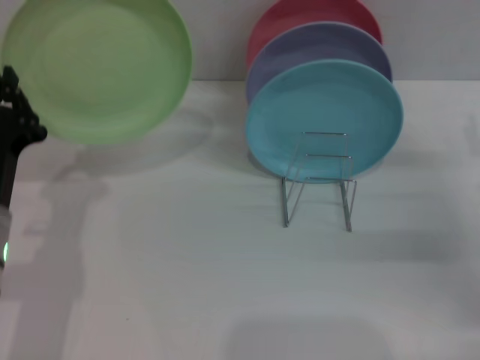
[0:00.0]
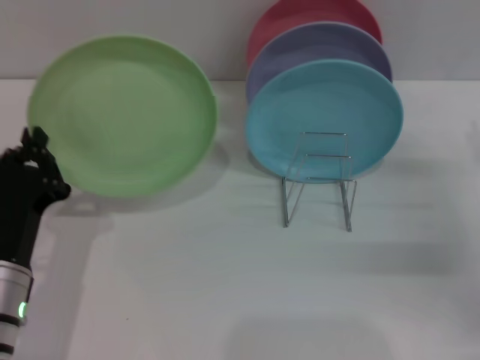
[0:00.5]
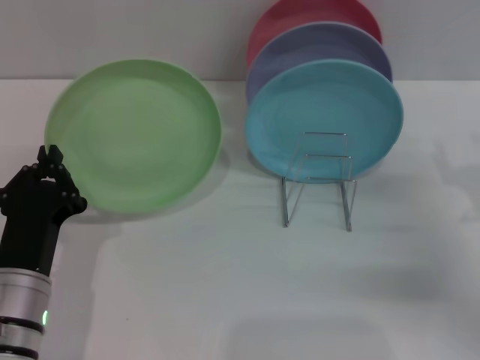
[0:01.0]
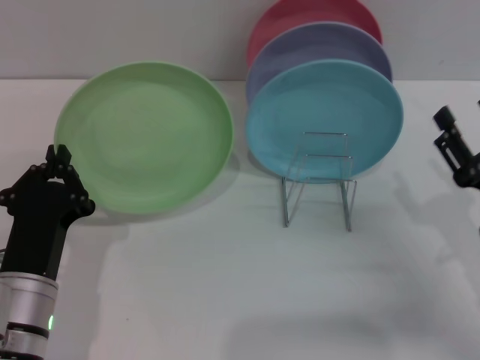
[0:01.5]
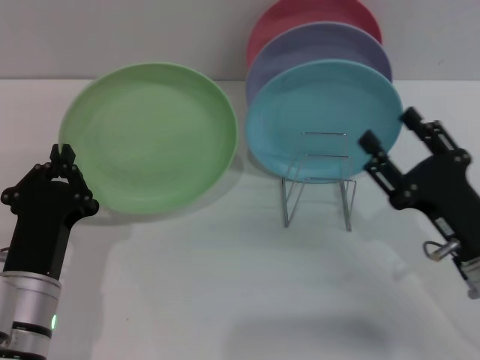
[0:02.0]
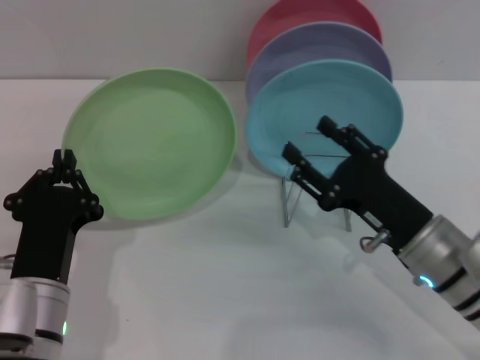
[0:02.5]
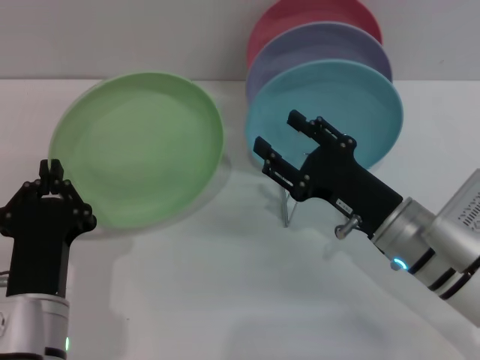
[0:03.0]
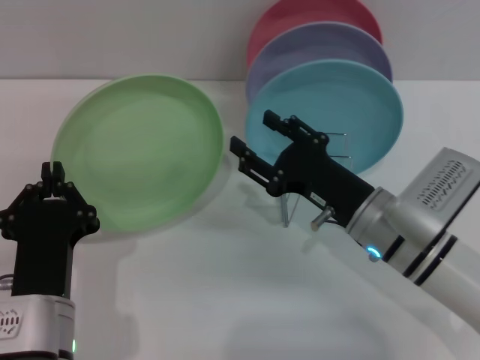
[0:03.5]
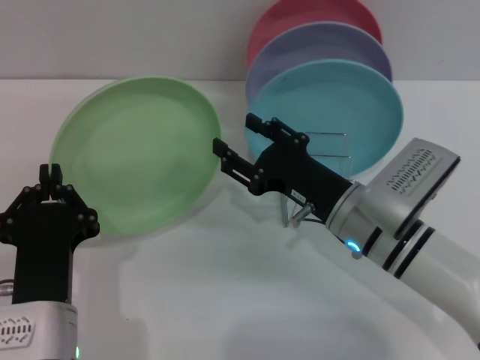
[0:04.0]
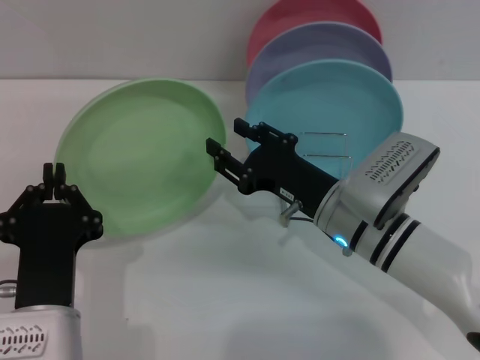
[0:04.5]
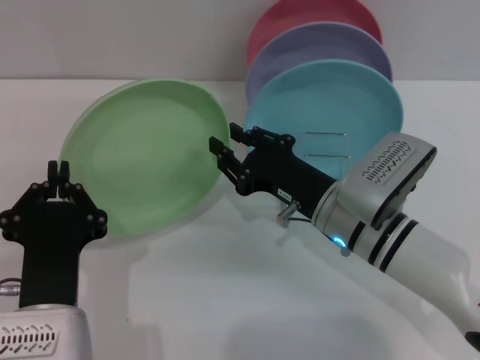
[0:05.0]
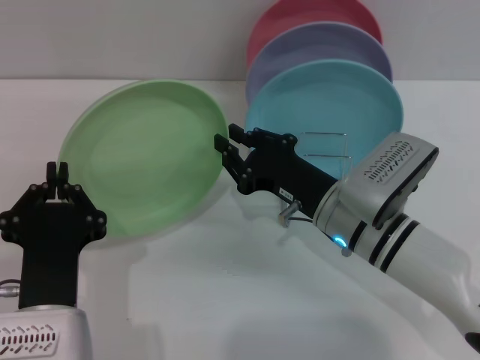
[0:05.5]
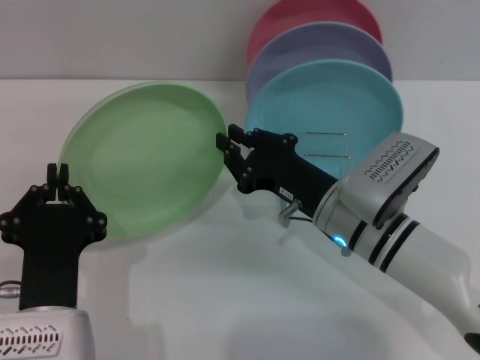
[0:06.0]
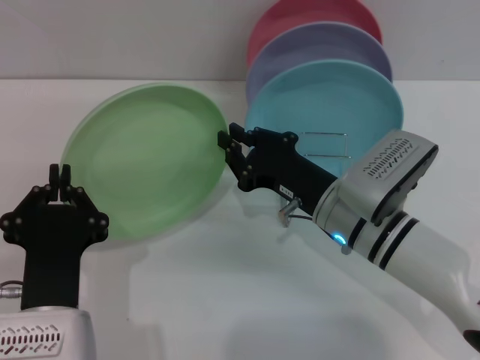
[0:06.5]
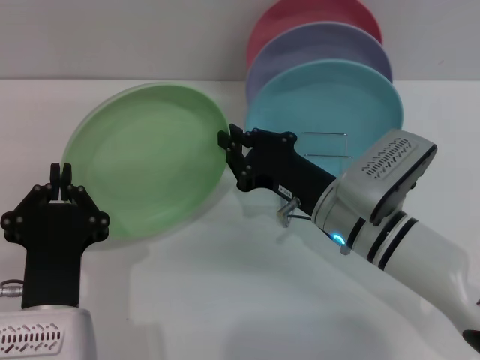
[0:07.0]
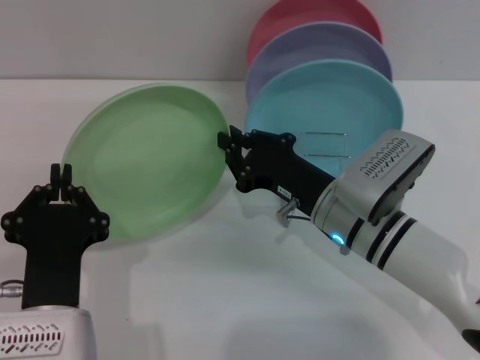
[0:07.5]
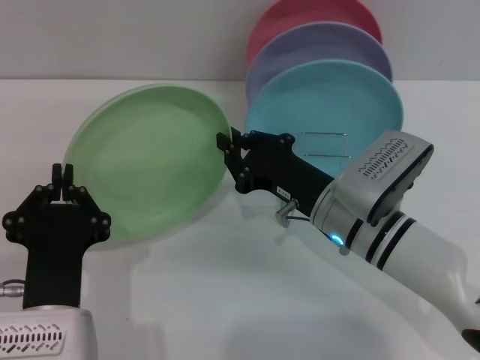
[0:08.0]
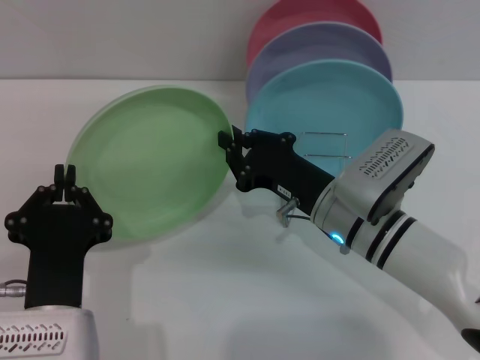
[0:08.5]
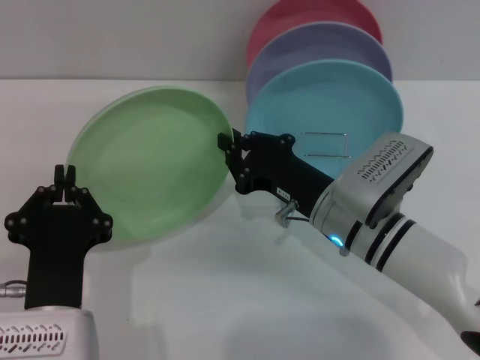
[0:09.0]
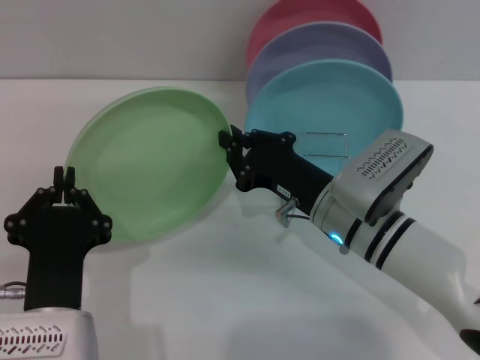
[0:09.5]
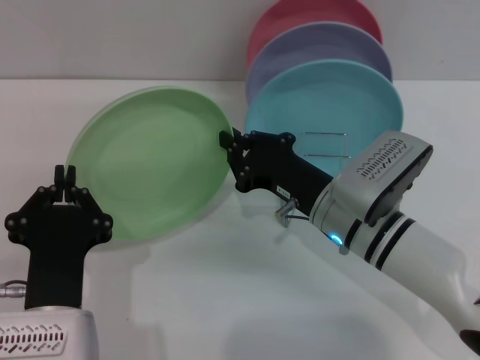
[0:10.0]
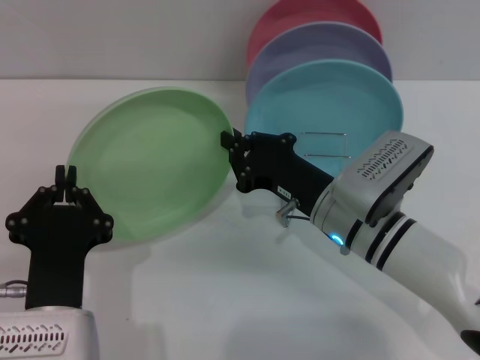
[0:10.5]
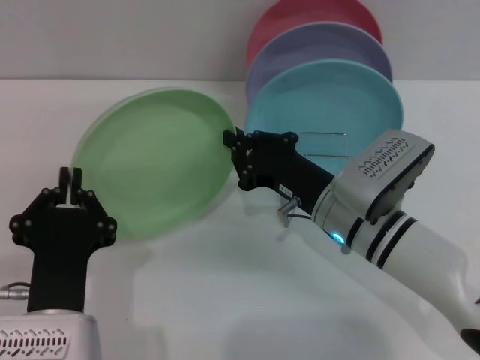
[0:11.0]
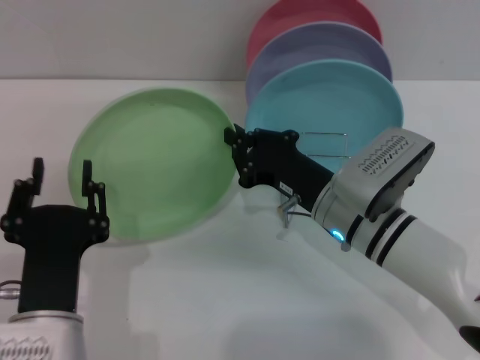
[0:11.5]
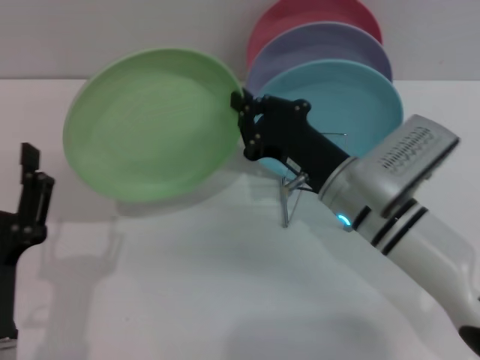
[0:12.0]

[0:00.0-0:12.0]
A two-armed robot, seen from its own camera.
Task of the whole recording: Grip the plate with one hand, pass it to the other, then set it on the shelf.
Step, 0:00.0 to 0:11.5: Pass the plate from the left gripper to the right gripper.
0:00.0 to 0:02.0: The right gripper moves to the left and backward, some 10 cm. Meanwhile the left gripper goes some 5 cm downward.
0:02.0 to 0:04.0: The right gripper heads to the left and forward, covering approximately 15 cm. Meanwhile the left gripper ends up some 5 cm from where it was.
0:04.0 to 0:06.0: The right gripper closes its fingers.
0:06.0 to 0:10.0: The two grippers keep their place.
0:10.0 to 0:12.0: The left gripper changes place by roughly 5 cm, and opens up.

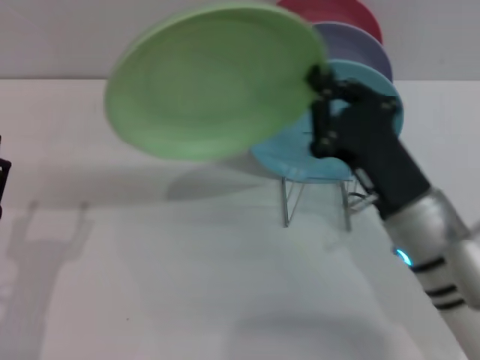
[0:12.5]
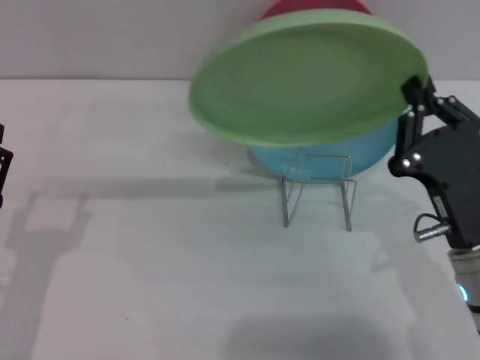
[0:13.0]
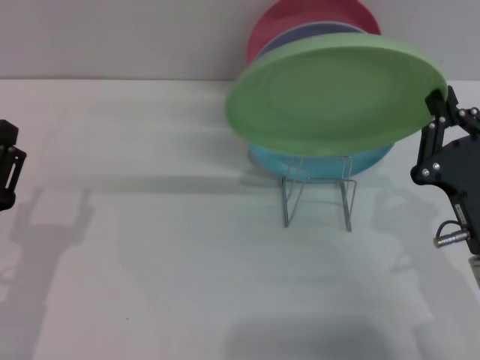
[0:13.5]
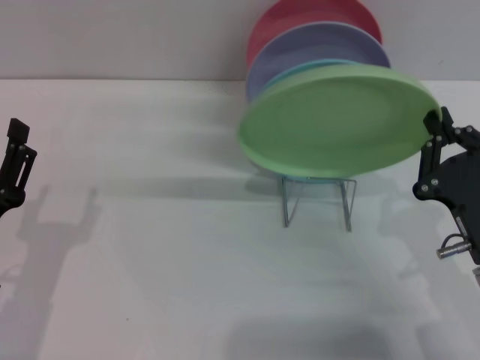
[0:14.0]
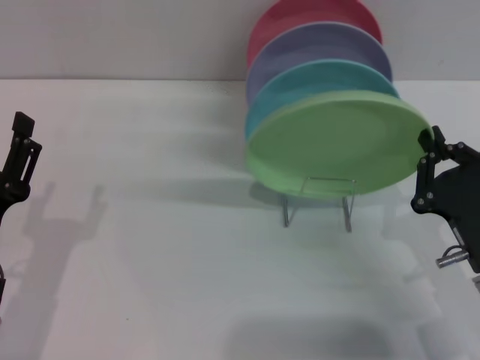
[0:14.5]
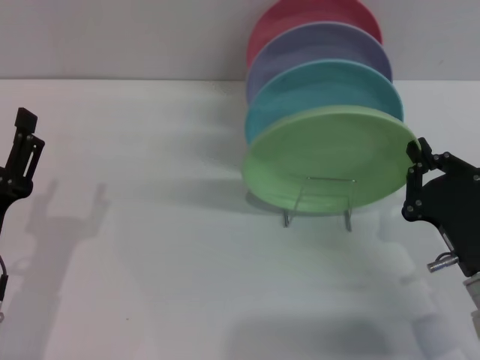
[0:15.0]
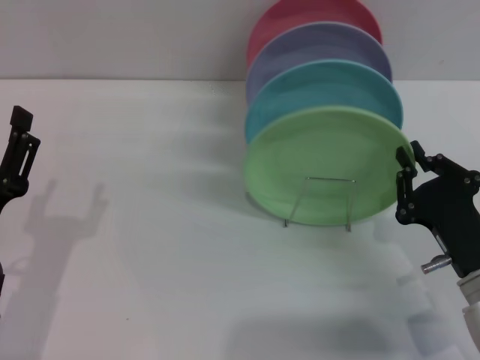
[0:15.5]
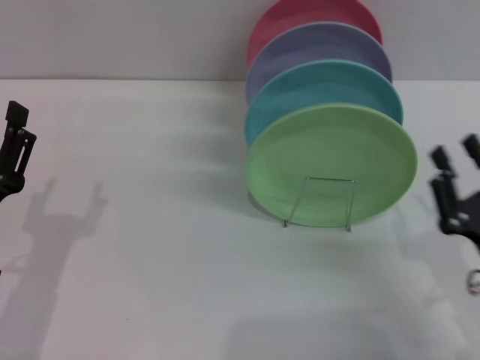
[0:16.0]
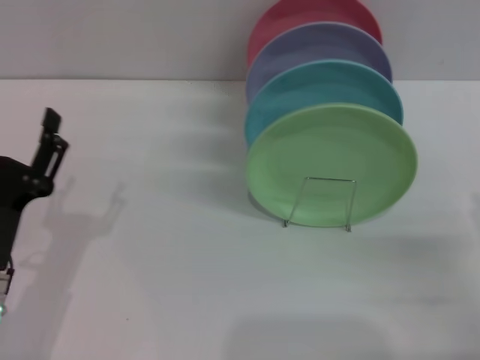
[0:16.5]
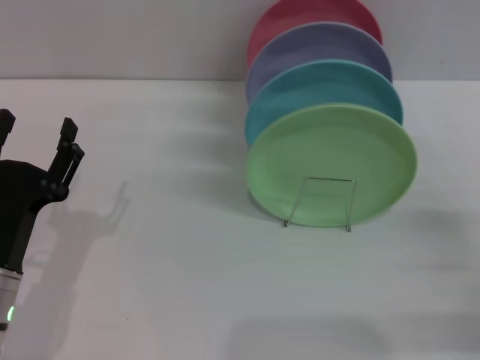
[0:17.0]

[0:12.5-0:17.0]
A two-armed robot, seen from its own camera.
Task of the whole recording: Grip the plate with one hand, pass it to the other, then set it on the shelf.
Step, 0:12.5 to 0:15.5: Place the plate on the shelf with the right gripper.
0:12.5 to 0:14.5: The right gripper goes about 10 cm to the right.
0:14.5 to 0:17.0: The right gripper is displaced to the right by some 10 cm, and opens.
